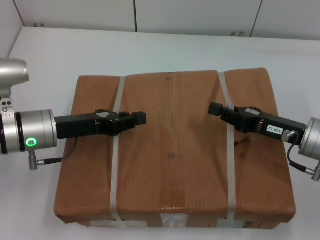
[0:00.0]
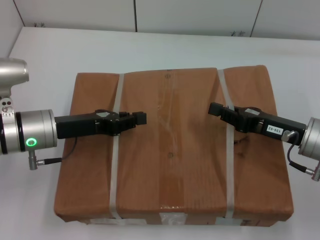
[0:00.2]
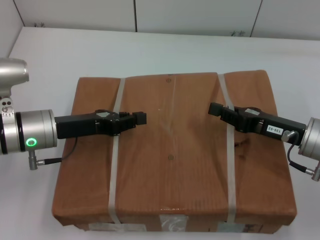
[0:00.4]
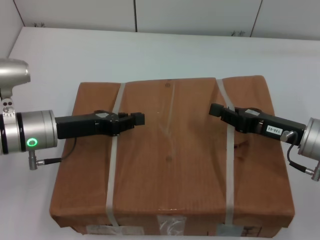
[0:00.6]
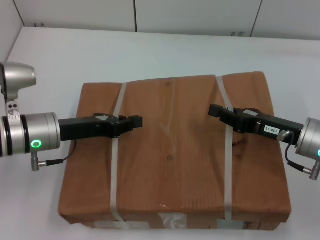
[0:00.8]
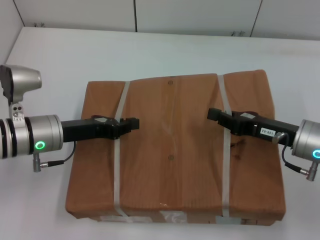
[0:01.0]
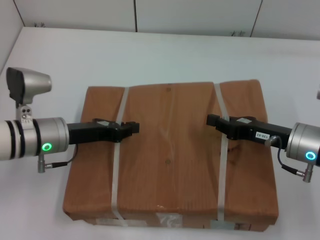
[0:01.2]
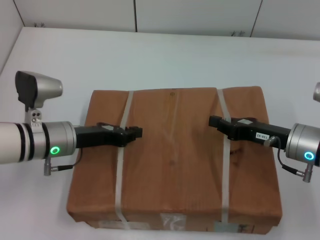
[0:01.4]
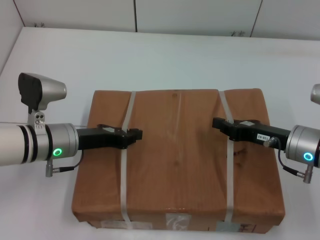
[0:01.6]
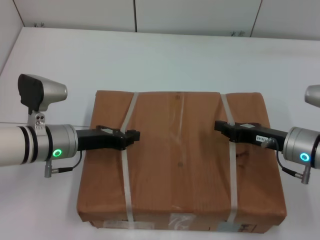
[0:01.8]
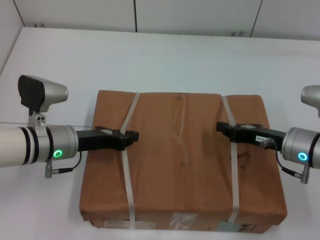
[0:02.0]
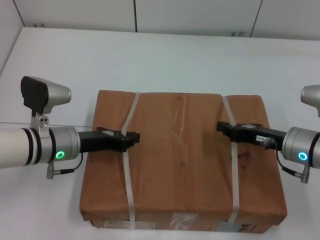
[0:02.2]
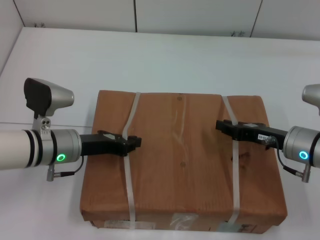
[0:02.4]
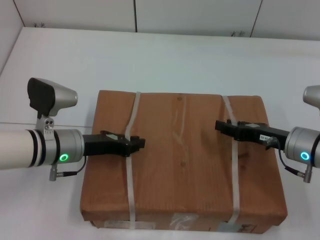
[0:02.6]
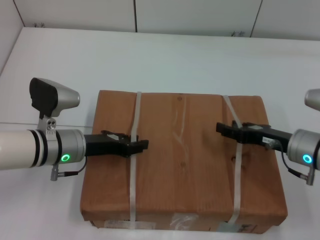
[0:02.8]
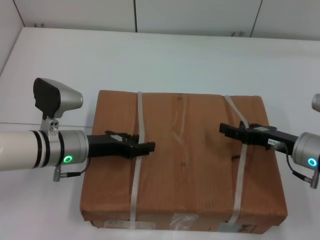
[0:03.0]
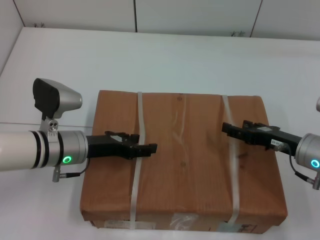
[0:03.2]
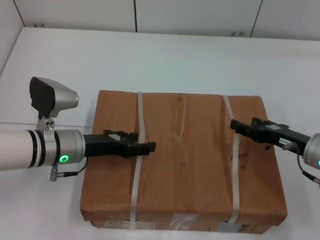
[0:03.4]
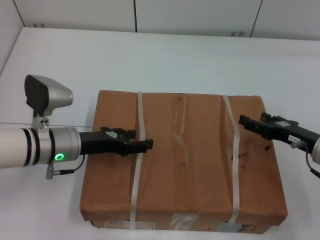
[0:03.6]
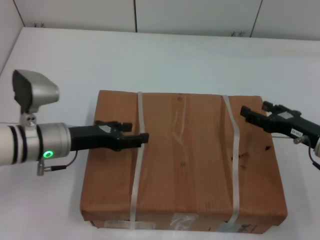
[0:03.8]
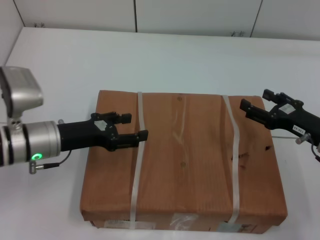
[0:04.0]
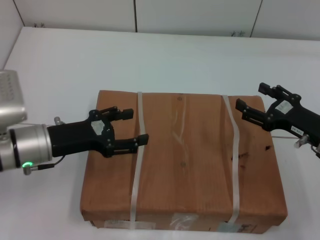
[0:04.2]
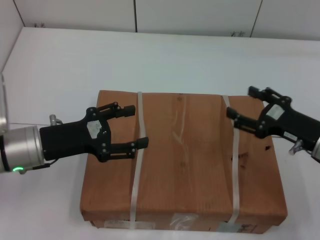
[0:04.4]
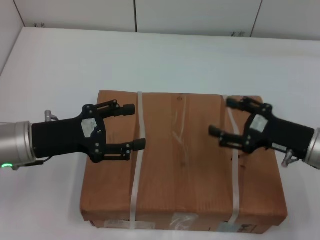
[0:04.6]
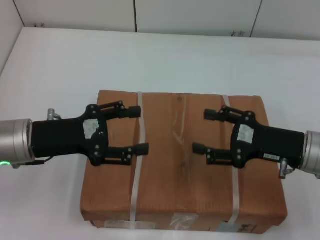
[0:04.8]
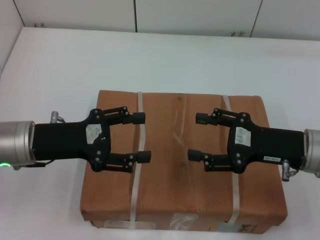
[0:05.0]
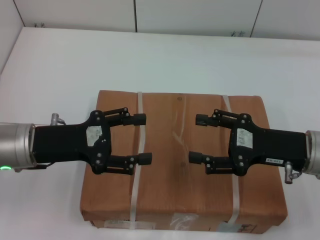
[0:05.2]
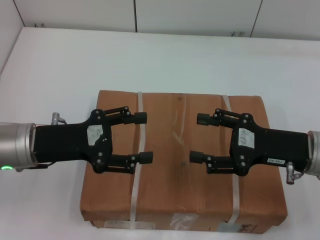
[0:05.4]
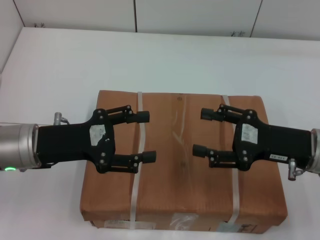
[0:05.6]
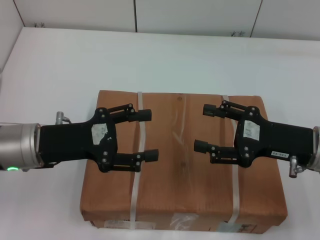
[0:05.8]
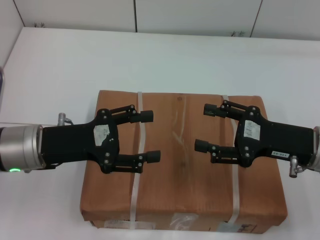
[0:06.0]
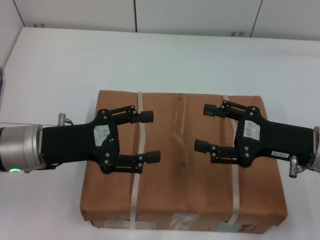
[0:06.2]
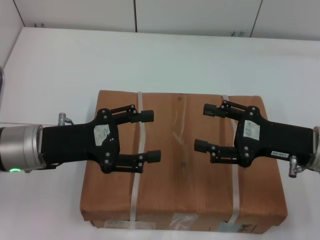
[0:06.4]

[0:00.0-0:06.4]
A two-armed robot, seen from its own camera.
Task of the whole recording: place the box on the table with both arms.
Step, 0:00.0 to 0:02.0: Place the box on the table with left gripper.
Step, 0:00.0 to 0:02.0: Place the box on the table with right gripper.
Step, 0:02.2 to 0:03.2: Loosen the box on the table with left gripper.
Step, 0:02.2 to 0:03.2: Loosen the box on the table with right gripper.
0:01.6 to 0:03.2: The right gripper opens up. Meanwhile the left gripper opens up.
0:03.2 to 0:04.8: Both grippers move upward, some 5 cm. The left gripper opens.
0:04.8 to 0:06.4: The grippers move only a little.
